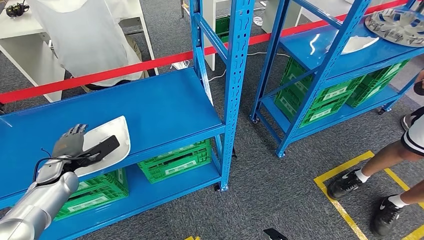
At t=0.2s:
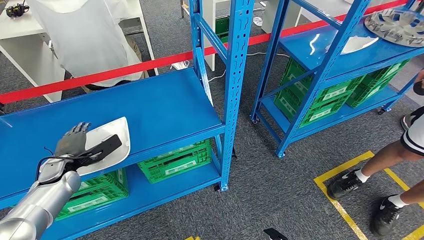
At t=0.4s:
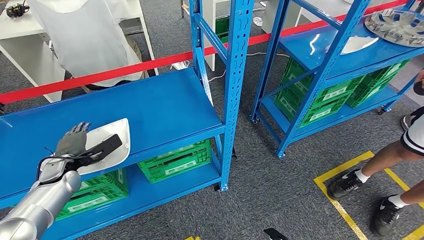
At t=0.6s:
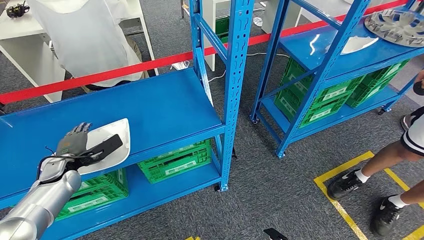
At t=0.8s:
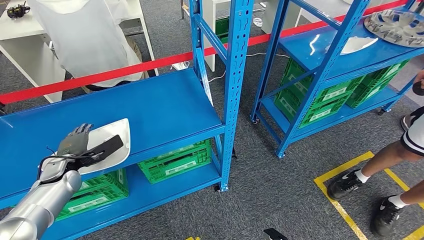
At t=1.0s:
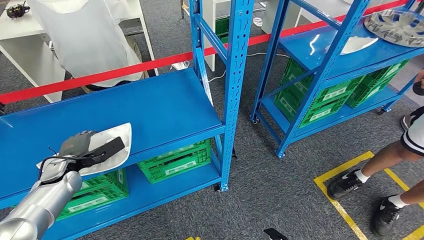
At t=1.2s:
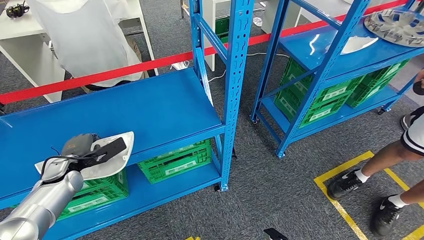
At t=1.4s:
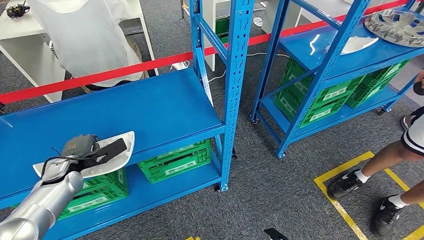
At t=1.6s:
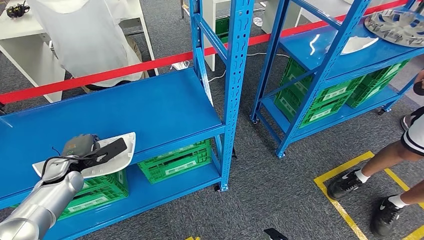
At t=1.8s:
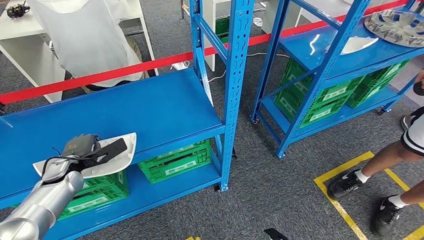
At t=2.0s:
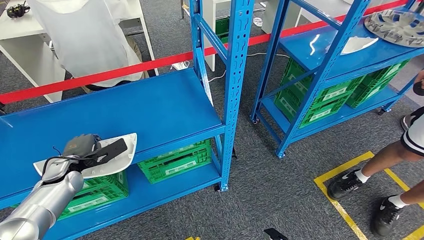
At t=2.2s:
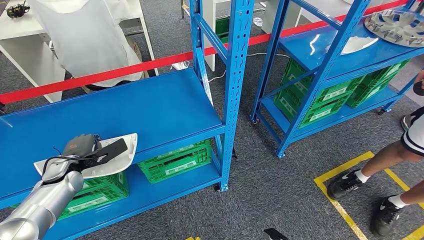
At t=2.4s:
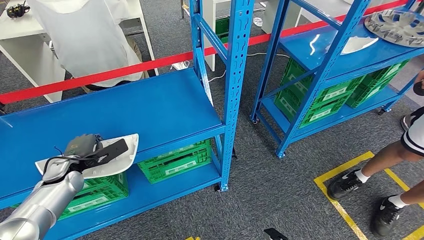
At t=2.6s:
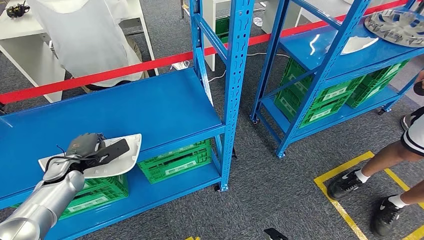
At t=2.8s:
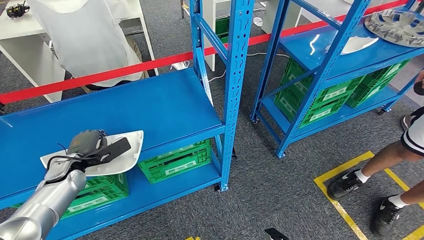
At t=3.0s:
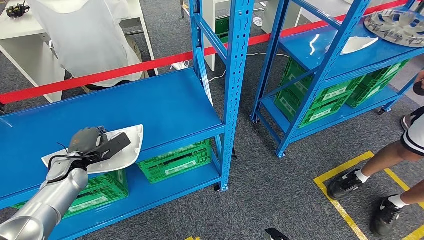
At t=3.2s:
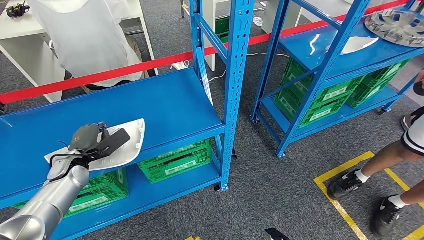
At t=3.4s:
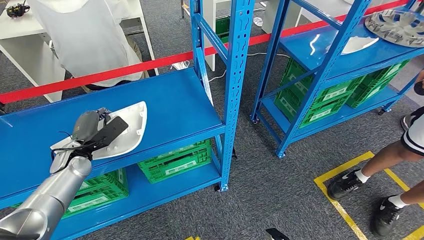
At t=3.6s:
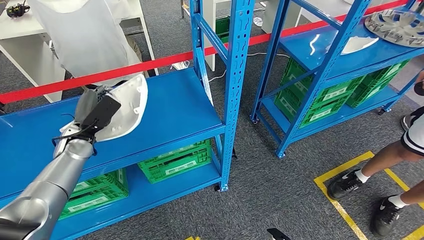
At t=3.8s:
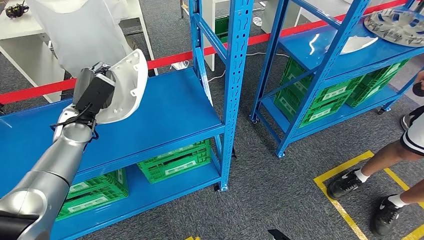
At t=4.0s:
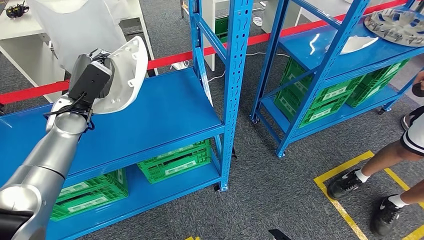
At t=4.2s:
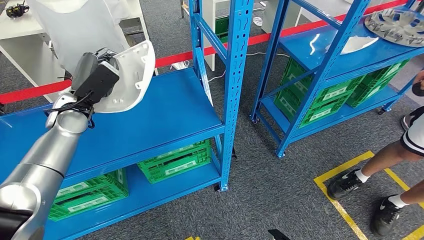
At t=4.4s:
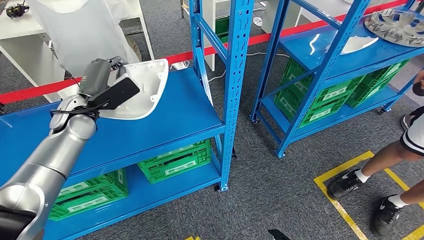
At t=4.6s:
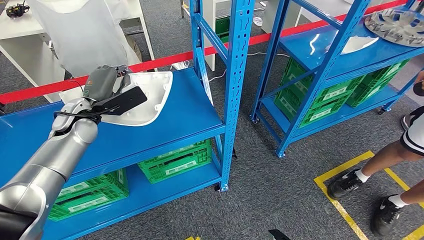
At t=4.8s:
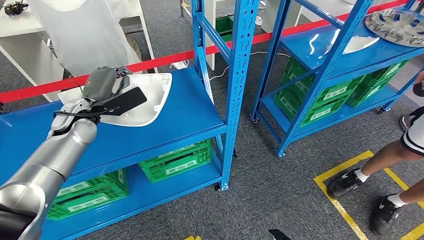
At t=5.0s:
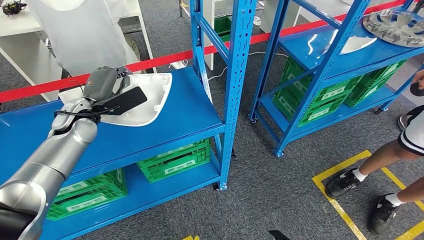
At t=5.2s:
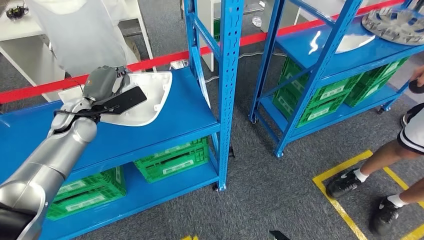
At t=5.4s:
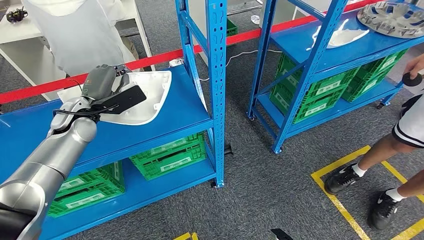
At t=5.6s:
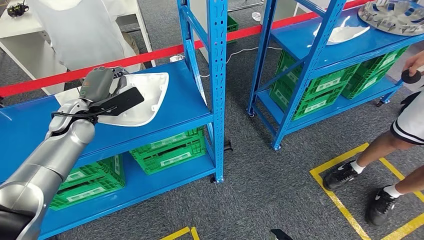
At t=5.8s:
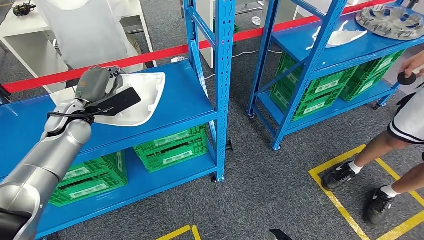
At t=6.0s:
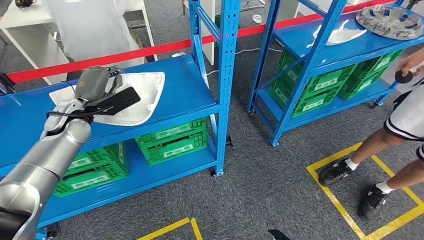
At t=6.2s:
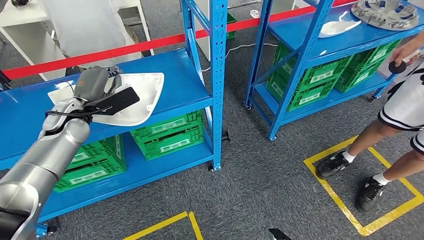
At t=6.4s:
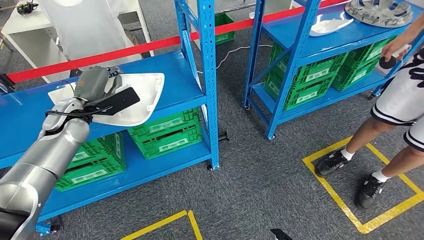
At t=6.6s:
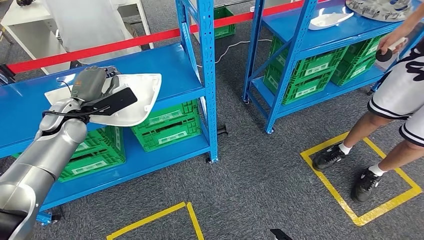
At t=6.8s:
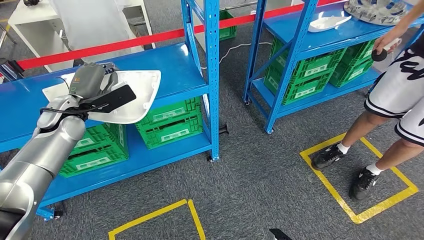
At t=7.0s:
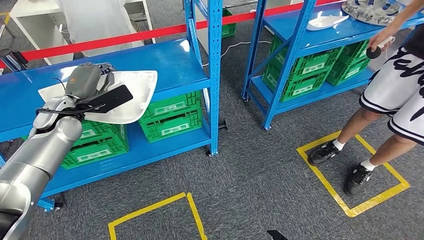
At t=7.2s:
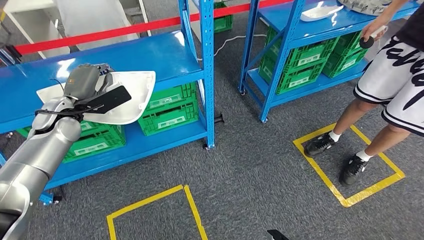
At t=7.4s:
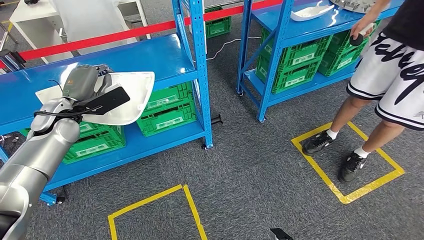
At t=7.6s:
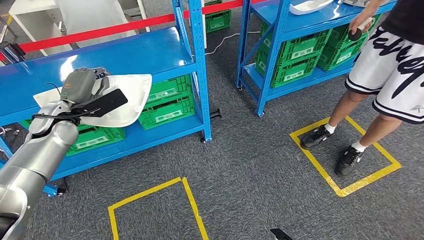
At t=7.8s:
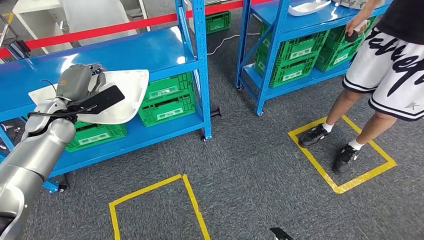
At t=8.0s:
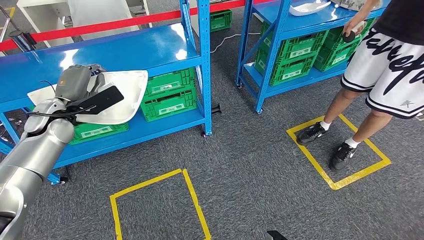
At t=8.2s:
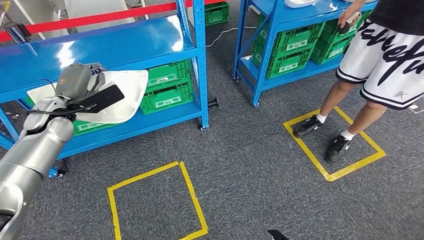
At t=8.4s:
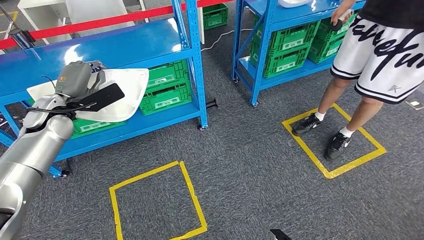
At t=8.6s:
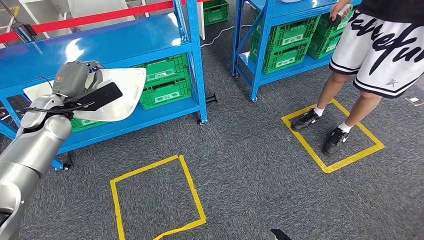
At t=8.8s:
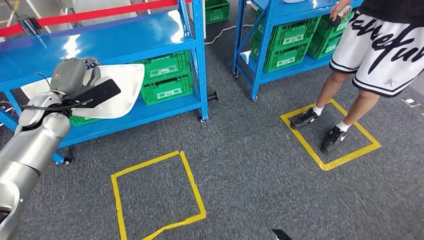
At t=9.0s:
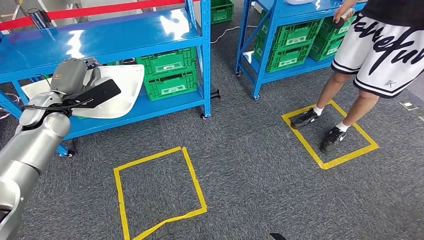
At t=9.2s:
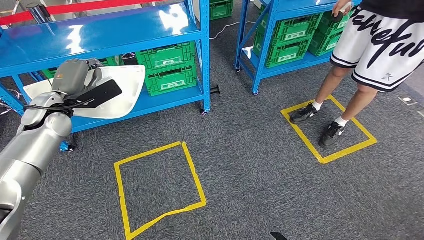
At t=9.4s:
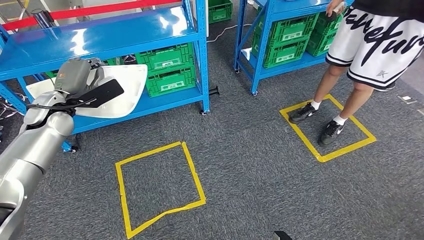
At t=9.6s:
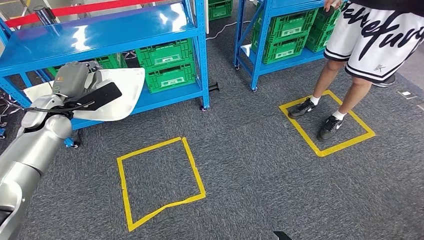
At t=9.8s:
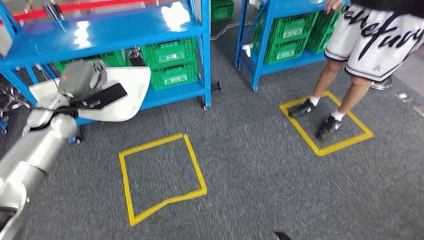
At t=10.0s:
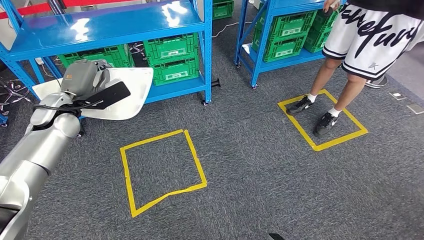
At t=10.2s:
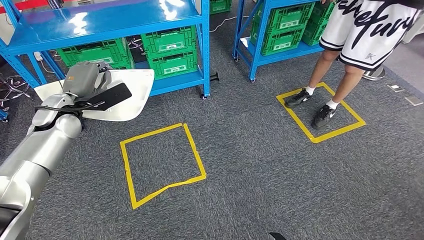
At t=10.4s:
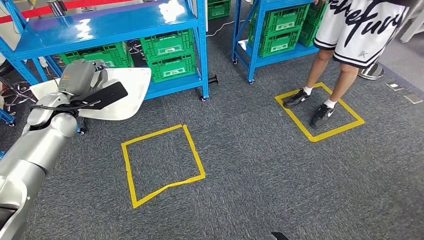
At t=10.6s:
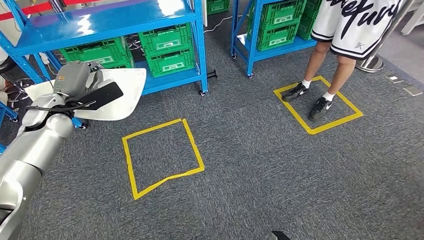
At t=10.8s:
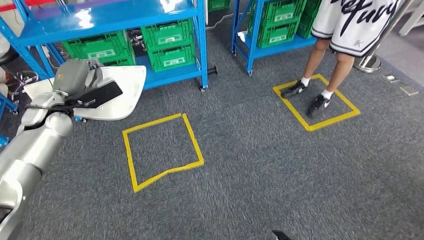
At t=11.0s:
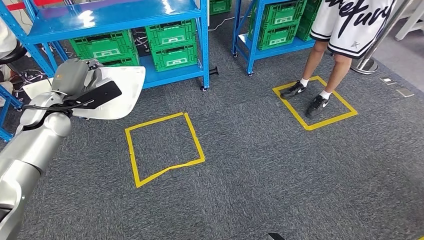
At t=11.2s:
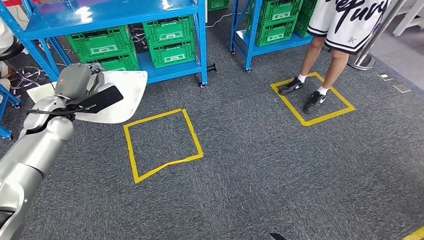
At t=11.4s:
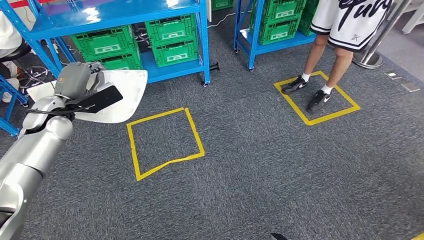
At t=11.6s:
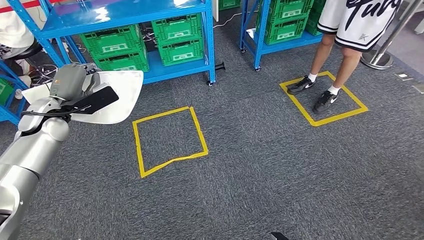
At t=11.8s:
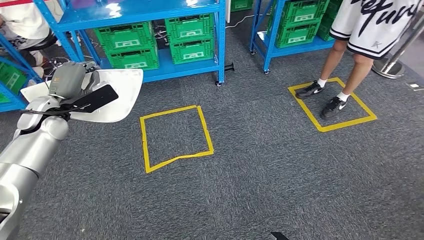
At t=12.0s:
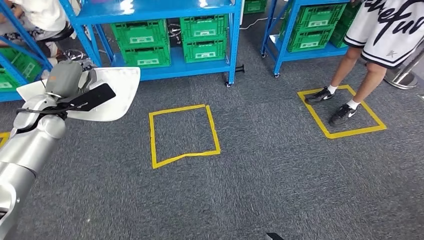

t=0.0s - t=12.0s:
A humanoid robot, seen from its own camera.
Step, t=0.0s - t=4.6s: Pick up the small parts from the shelf.
t=0.0s - t=3.0s: The hands stay close to where they were, moving slightly.
t=3.0s - t=4.4s: The left hand moves upward and to the right, some 20 cm.

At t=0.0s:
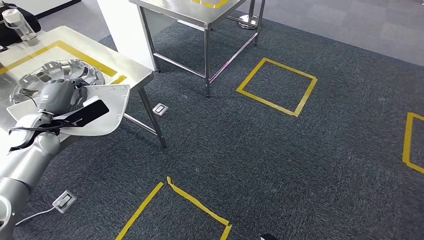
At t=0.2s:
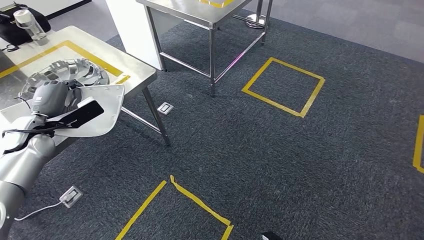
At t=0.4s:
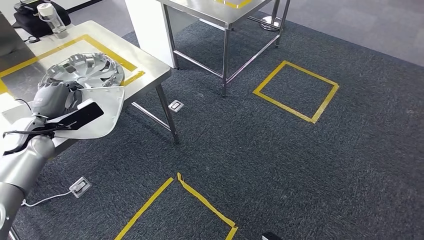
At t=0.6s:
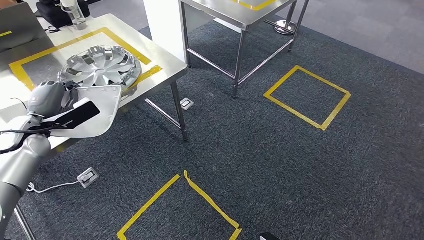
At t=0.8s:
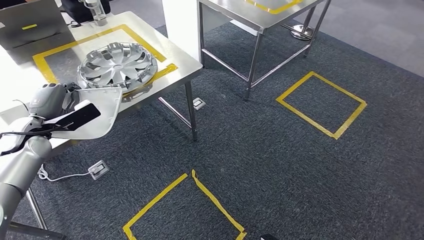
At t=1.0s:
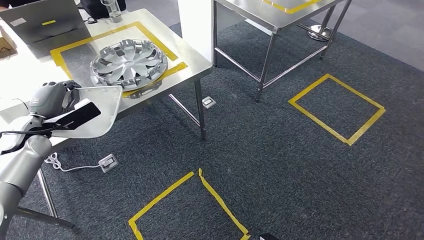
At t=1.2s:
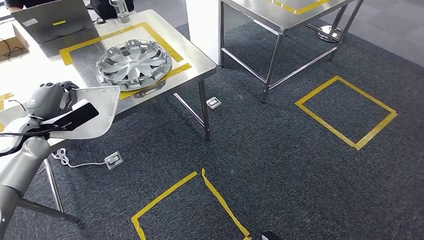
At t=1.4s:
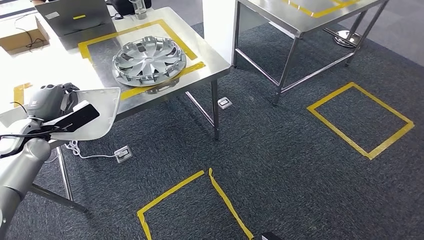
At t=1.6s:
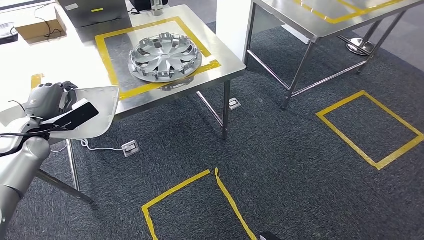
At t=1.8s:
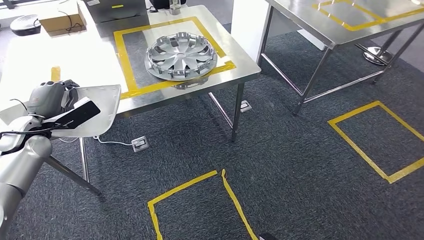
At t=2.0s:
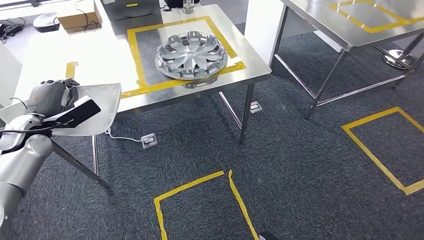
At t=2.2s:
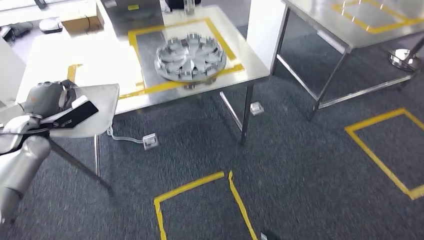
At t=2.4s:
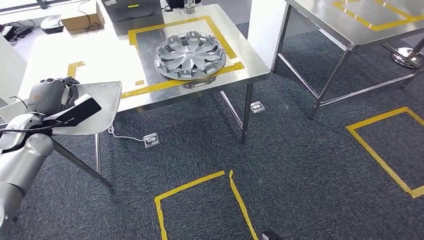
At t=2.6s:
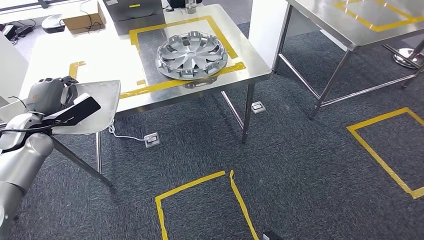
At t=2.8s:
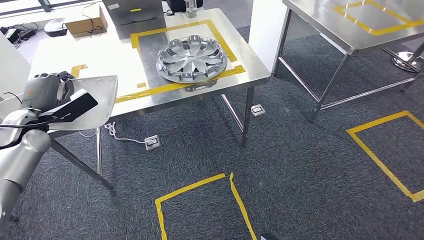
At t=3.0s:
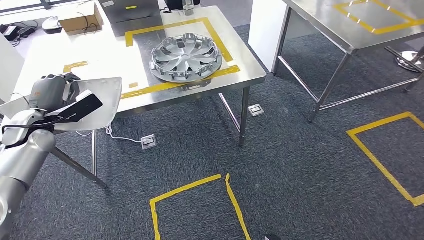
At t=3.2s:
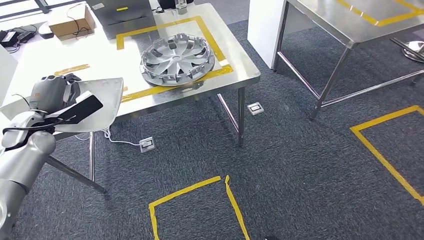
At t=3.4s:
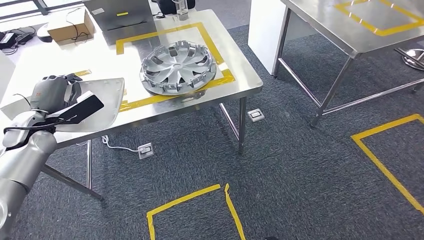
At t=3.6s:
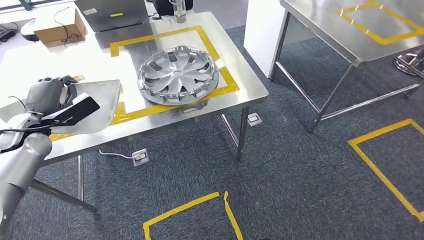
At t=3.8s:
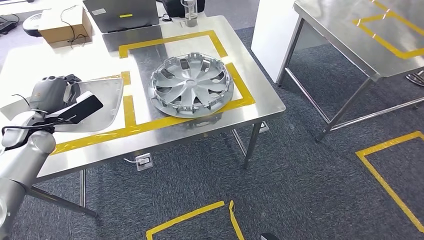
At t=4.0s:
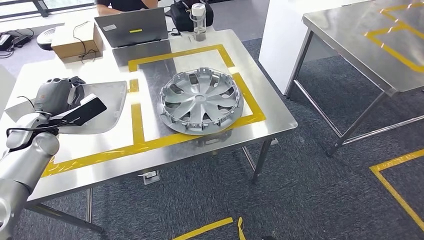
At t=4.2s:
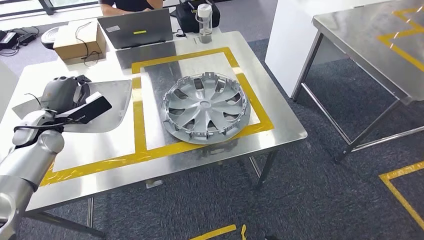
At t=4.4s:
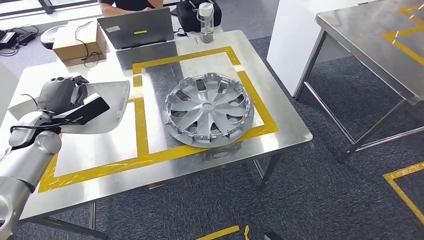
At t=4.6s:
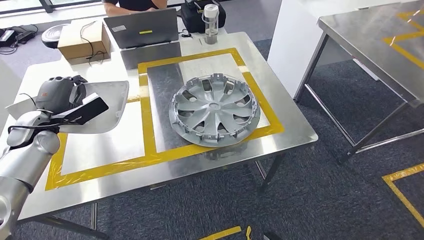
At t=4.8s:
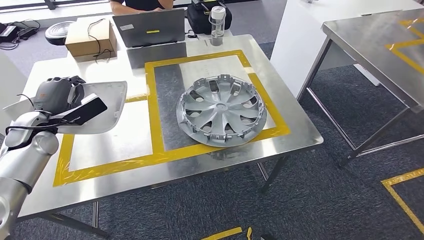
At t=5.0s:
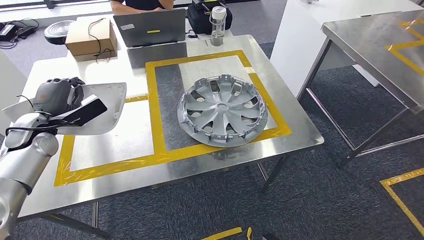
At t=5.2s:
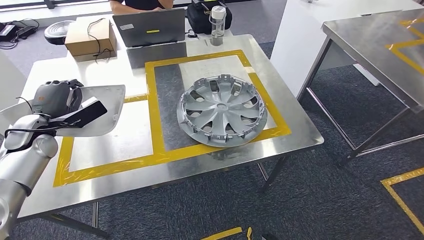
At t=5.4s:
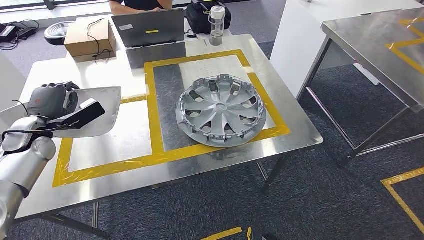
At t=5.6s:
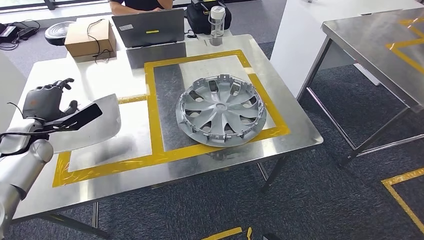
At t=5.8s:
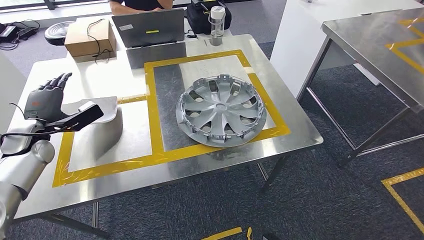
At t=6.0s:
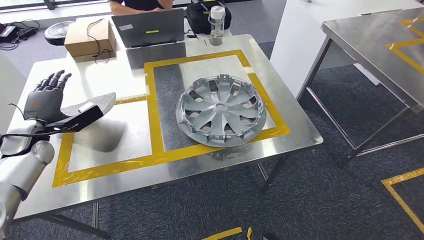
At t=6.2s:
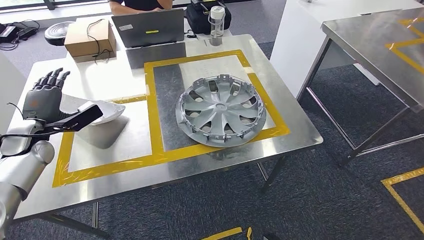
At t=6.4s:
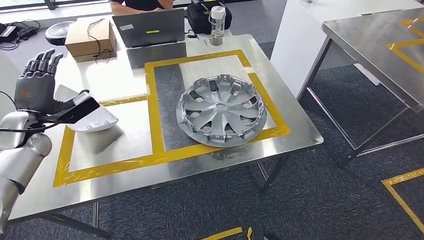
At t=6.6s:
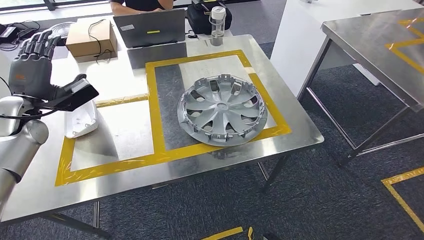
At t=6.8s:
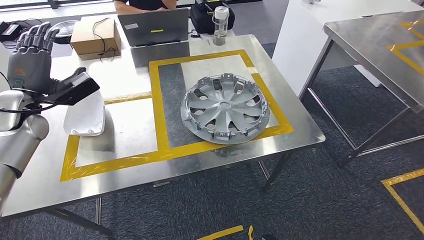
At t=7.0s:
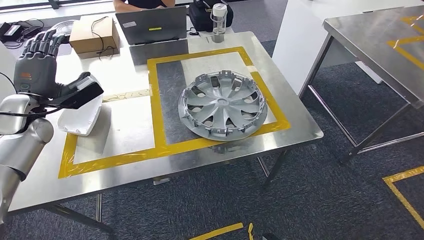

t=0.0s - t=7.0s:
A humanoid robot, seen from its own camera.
Step, t=0.0s - t=3.0s: Move the small parts to the workbench.
Step, t=3.6s - t=6.2s: Insert the small parts into the corresponding holes on the workbench.
